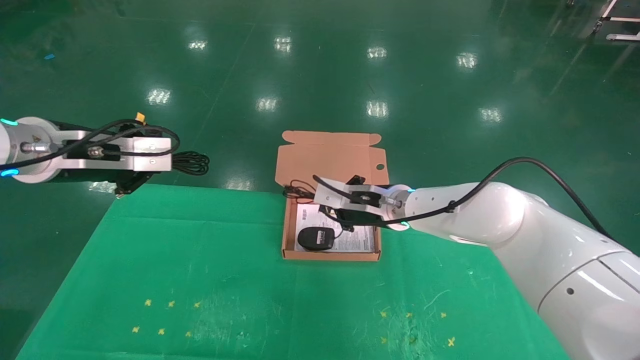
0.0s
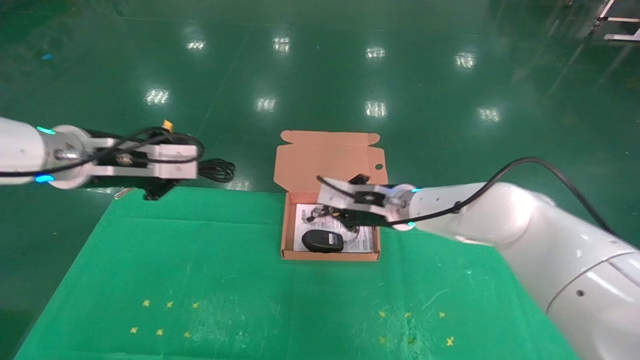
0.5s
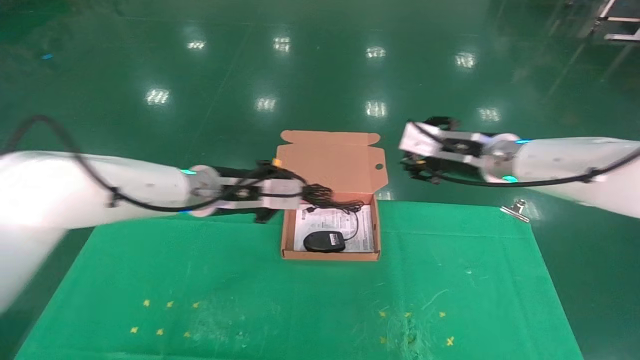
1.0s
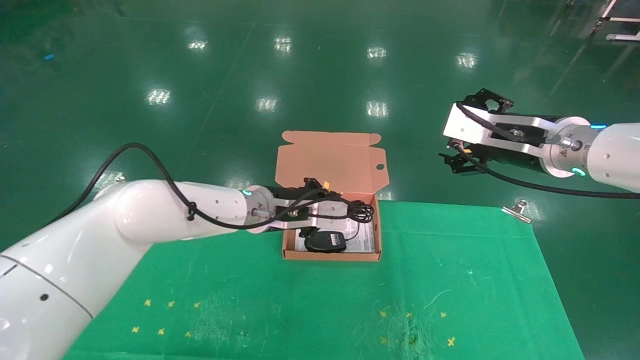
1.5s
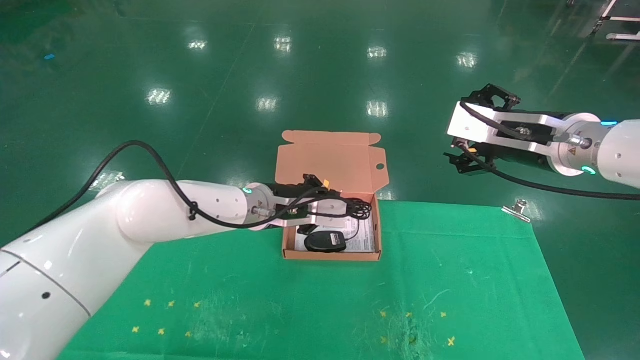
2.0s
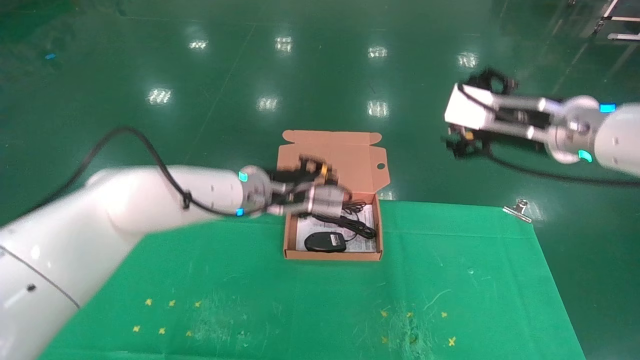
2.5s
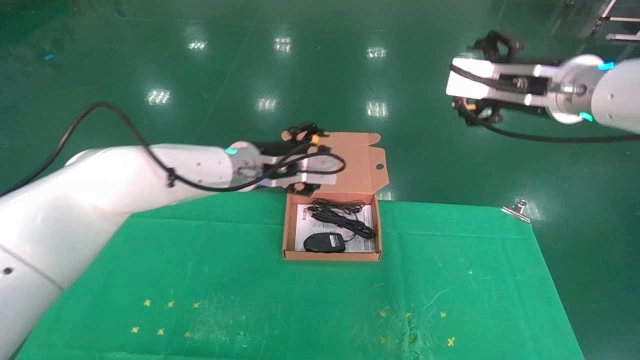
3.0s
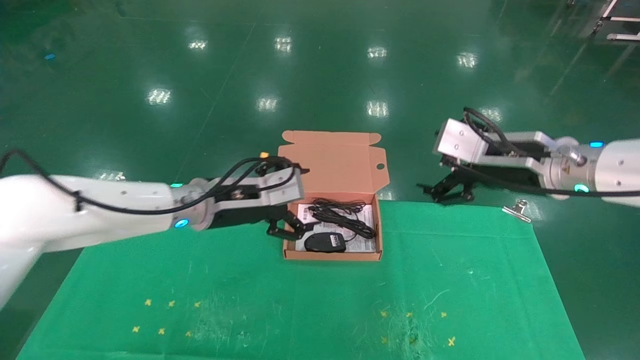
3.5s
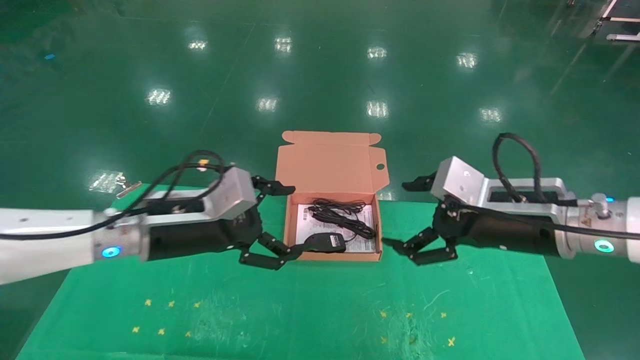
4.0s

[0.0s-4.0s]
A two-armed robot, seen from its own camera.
Task of the whole recording: grasp data cable left put into box grasp mouse right put into box.
Step, 0.0s to 2.0s: Place the mouse and power cord into the box.
0.0s to 2.0s: The right gripper goes roughly 25 cm to the right, upward and backward, and opens its fingers, while the left gripper is displaced to the right, downward and forward by about 30 cm.
2.0s to 4.0s: The right gripper moves downward, approximately 10 cm. The left gripper is displaced to the left and backward by some 15 cm, and opens its fingers.
